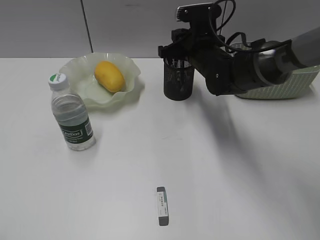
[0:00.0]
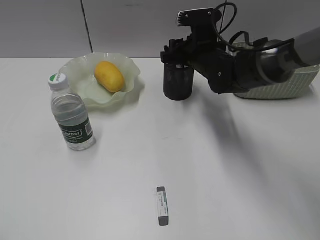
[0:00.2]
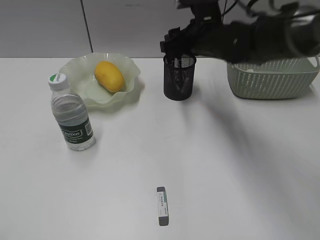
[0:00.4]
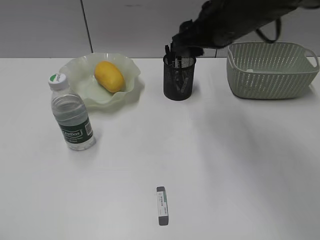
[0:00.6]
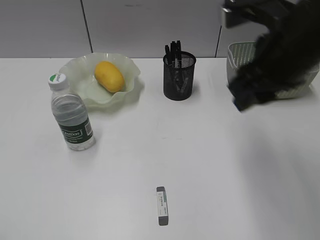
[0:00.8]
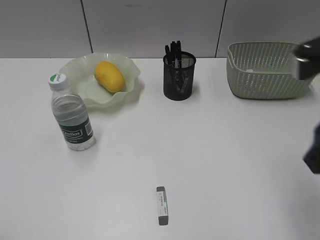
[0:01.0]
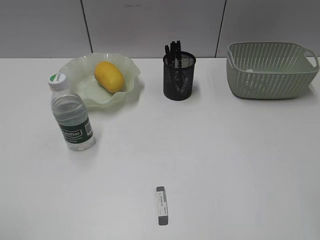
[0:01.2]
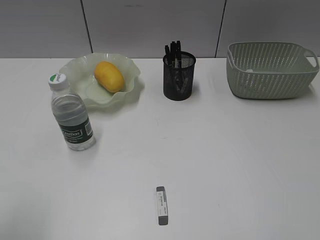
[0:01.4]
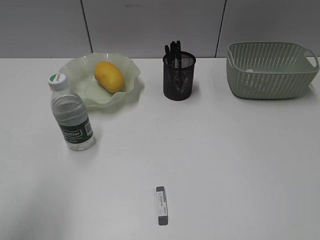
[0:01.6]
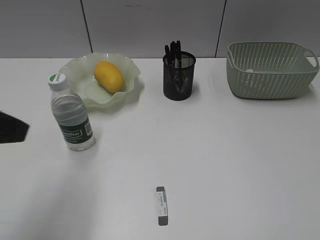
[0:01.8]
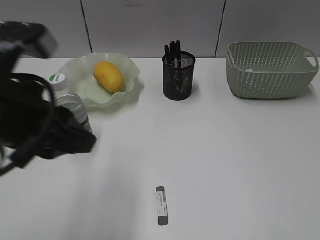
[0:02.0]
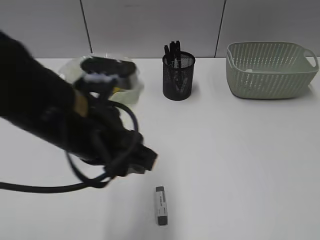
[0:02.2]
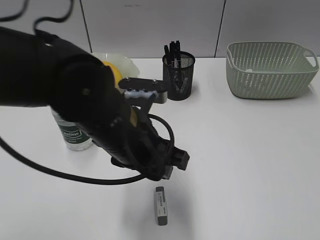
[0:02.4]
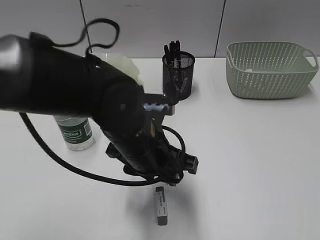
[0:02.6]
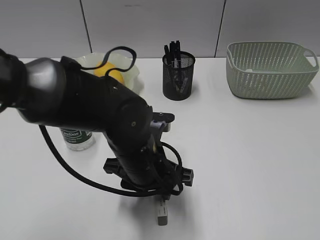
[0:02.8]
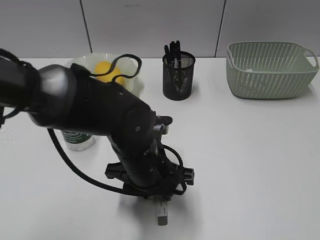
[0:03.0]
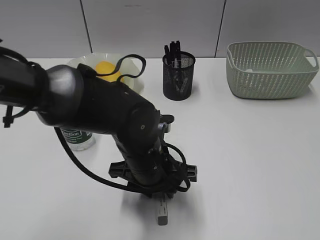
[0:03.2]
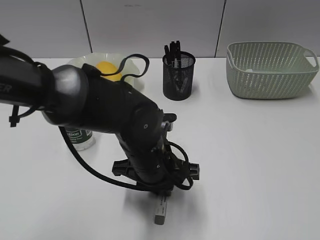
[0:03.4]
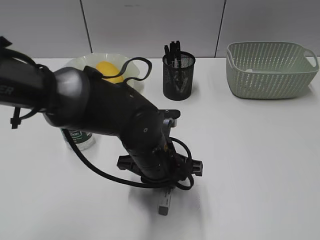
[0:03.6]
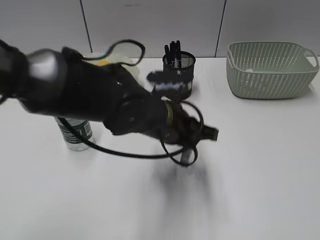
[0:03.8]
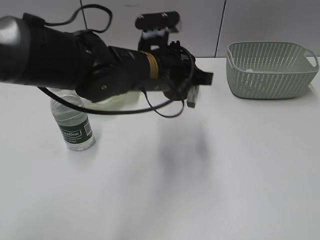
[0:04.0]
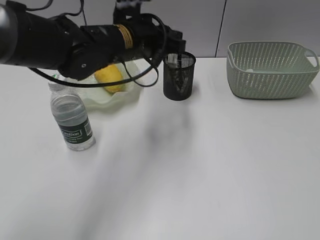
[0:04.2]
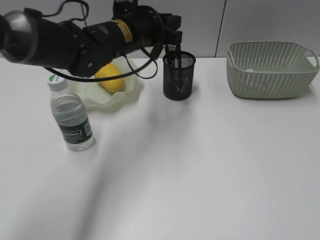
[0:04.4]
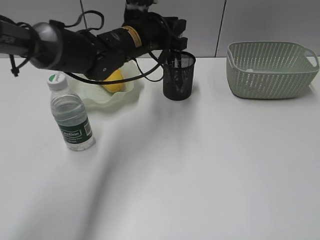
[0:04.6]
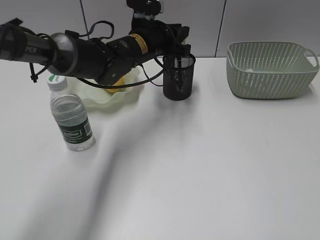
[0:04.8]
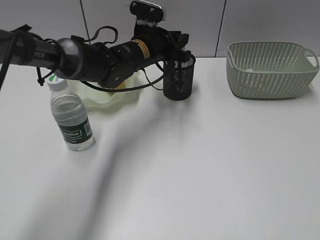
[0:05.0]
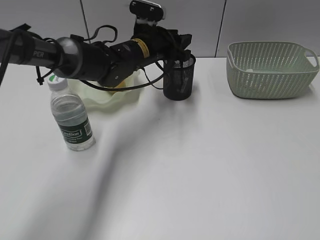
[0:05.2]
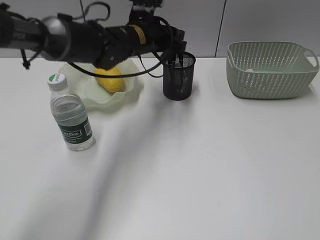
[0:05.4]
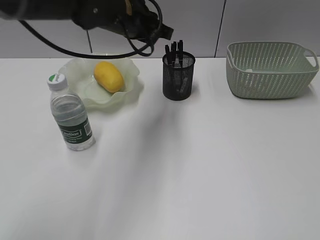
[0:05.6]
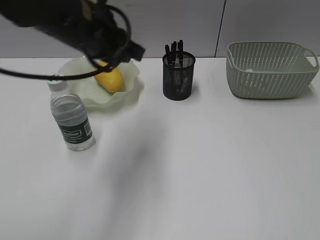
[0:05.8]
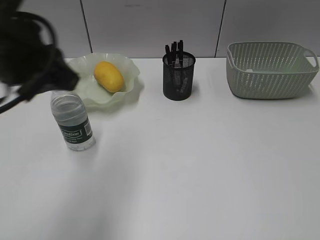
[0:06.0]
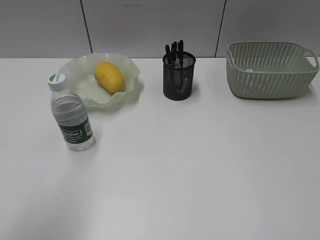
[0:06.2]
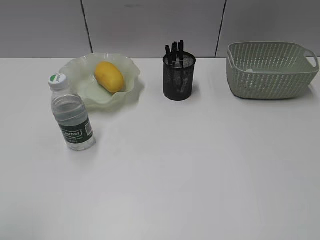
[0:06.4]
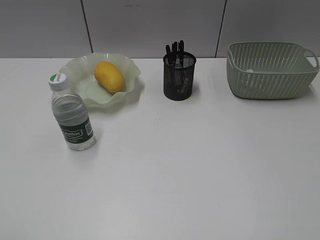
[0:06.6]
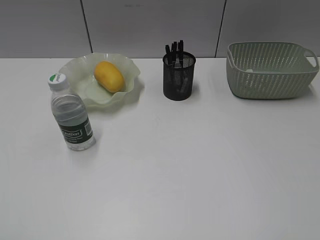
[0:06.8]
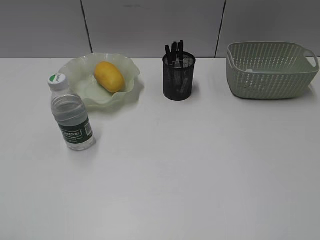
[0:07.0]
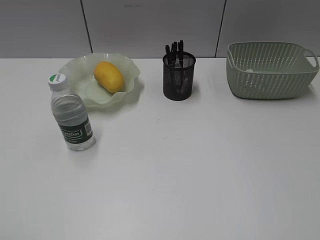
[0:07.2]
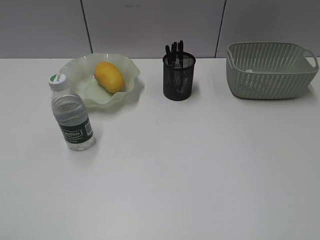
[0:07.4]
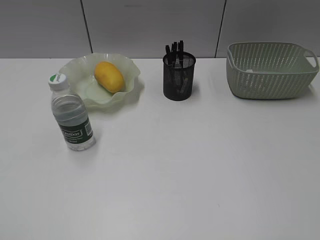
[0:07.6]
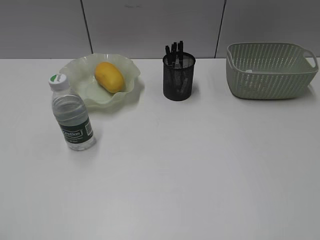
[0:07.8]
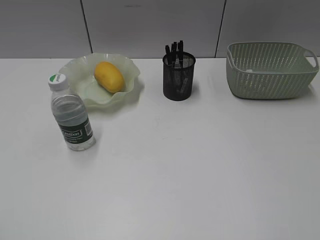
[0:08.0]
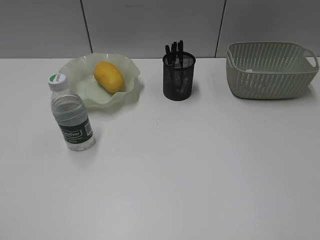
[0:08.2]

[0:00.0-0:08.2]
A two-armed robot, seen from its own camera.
Step, 0:00.4 to 0:03.4: Grasp the eraser with left gripper.
Step, 0:03.6 to 0:05.2: Place the eraser in pen holder with left gripper.
0:00.0 to 0:01.6: The left gripper moves forward and to the right, about 15 cm; the right gripper travels backward and to the right by about 40 cm, and opens.
0:01.6 to 0:03.2: The left gripper goes some 35 cm to the right, downward and forward.
0:03.2 to 0:05.0: The left gripper moves forward, some 20 cm.
0:05.0 to 0:06.6: The left gripper goes some 50 cm backward and to the left.
